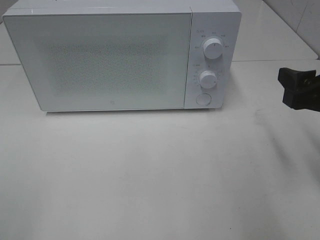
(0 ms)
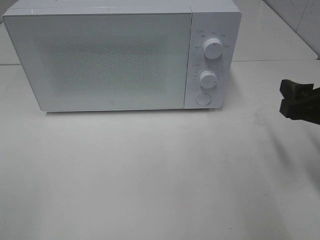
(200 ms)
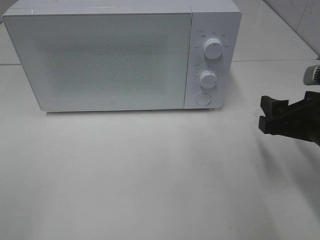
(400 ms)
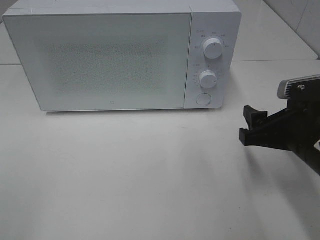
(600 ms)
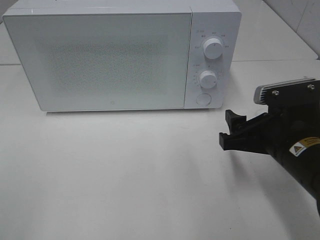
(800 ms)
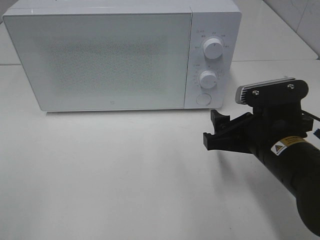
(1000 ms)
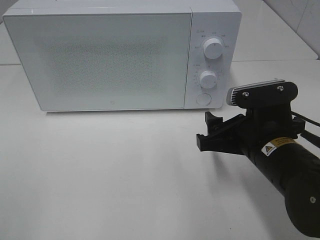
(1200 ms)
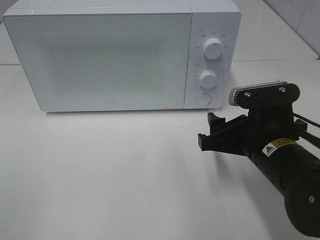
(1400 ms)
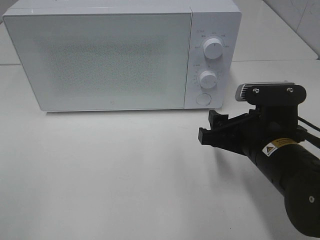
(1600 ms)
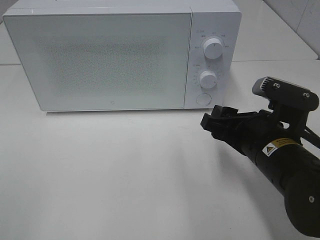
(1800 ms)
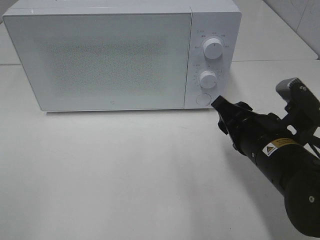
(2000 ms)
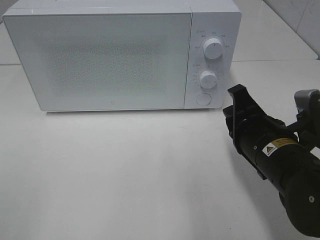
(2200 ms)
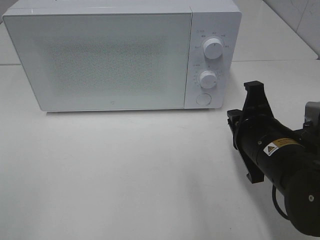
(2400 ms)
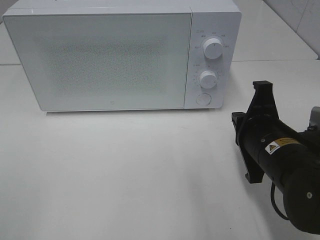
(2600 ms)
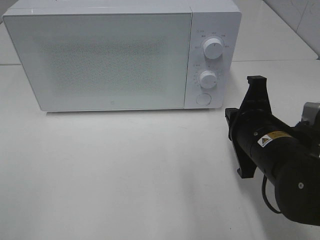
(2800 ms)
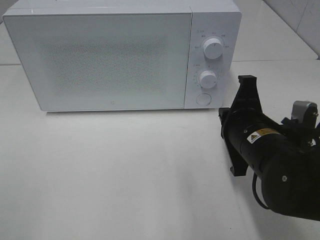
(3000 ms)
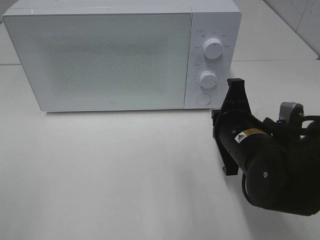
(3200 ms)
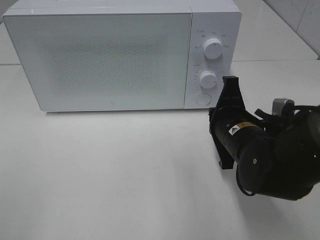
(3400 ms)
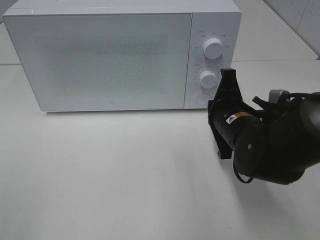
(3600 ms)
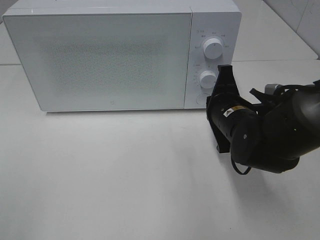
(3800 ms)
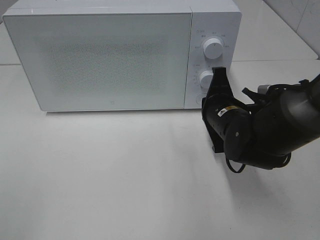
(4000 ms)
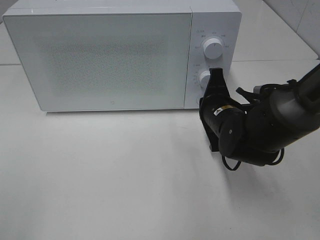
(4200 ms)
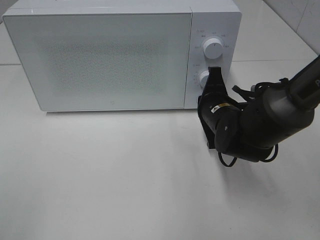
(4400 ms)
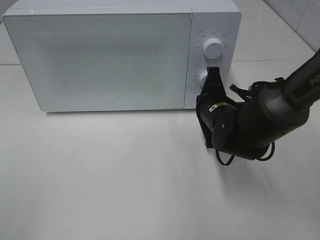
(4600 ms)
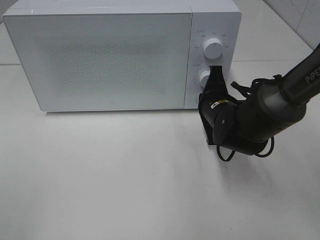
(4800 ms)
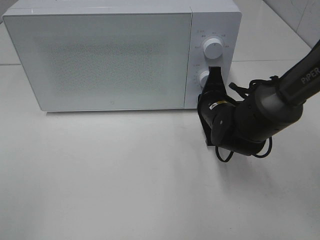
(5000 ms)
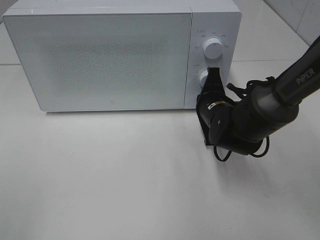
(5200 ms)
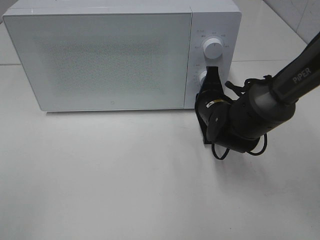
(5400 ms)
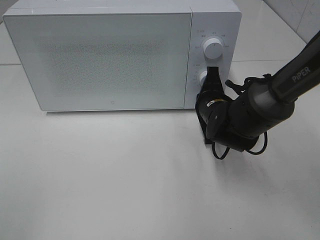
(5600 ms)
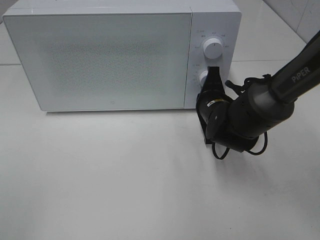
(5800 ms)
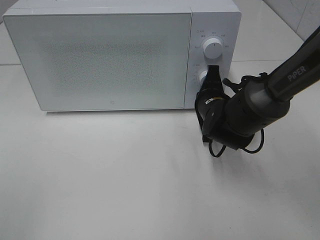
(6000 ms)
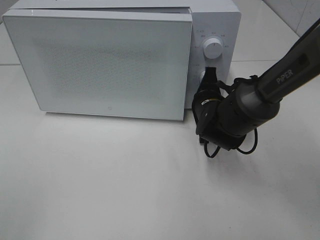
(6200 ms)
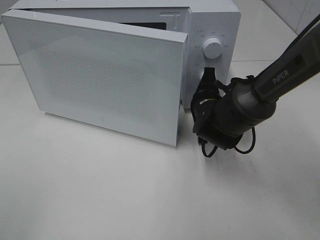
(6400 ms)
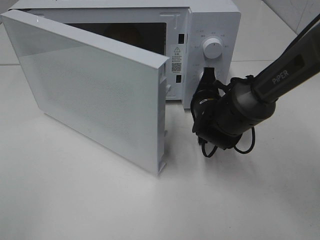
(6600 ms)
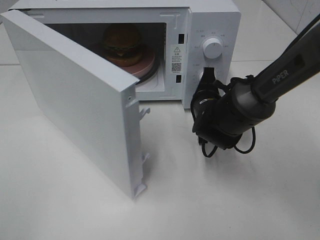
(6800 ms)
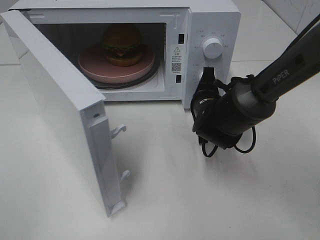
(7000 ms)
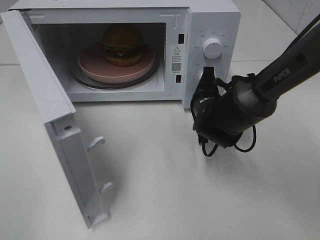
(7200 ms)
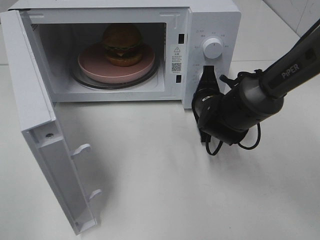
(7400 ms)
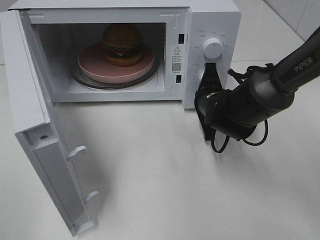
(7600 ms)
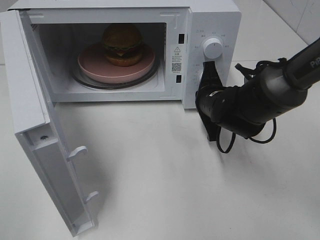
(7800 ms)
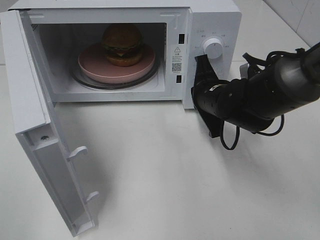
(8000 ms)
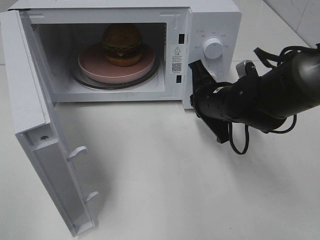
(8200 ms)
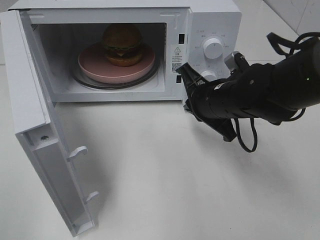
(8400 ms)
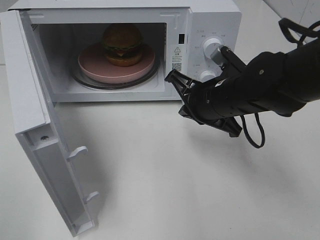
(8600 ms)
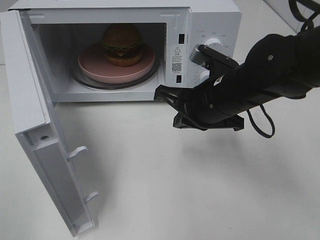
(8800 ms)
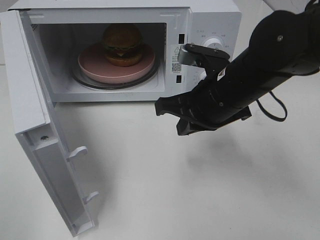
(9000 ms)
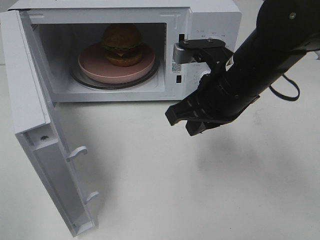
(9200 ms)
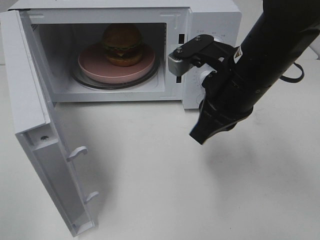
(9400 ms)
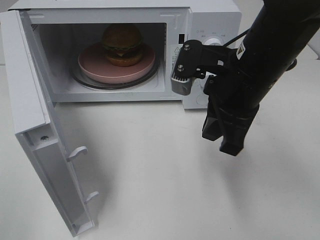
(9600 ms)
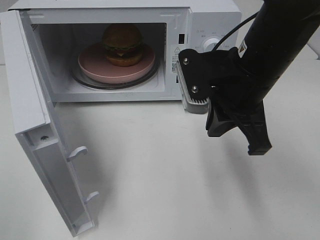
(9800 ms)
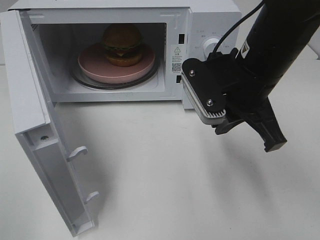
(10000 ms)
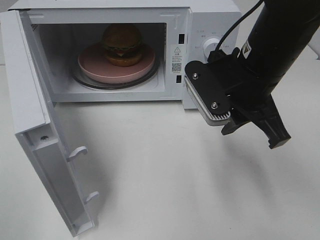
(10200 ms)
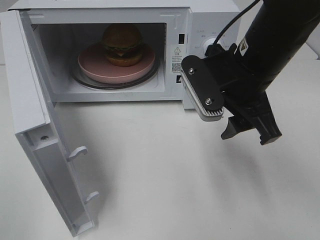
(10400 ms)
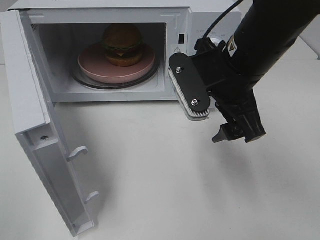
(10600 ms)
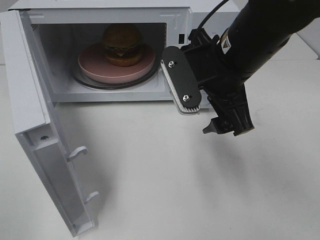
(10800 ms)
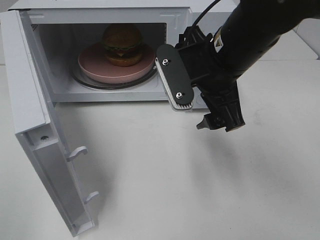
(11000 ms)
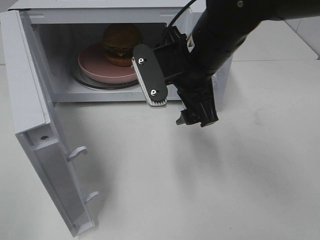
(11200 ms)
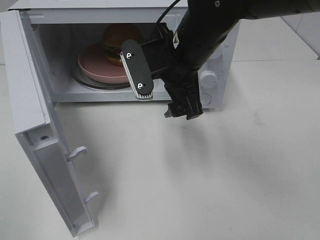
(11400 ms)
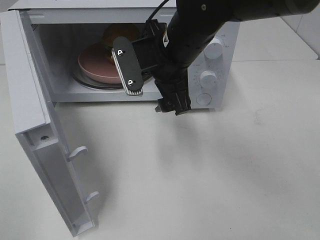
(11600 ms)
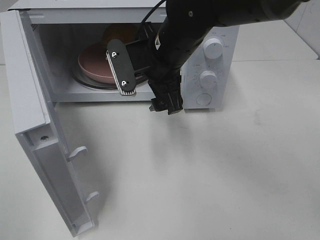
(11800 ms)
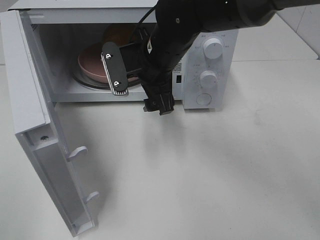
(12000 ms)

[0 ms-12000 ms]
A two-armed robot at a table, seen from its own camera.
Task of the whole recording: Heat the burger.
Step, 0 ms to 7800 ms: Right hand: press the switch.
0 ms to 1600 ms: The right gripper goes roughly 15 cm to the left and downward.
1600 ms to 3000 ms: The right gripper closes its fingers.
3000 ms to 4400 ms: The right gripper moves forward, about 10 cm.
4400 ms to 6000 ms: The grippers move only a little.
7600 ms to 9000 ms: The right gripper heads upward and backward, covering about 15 cm.
9000 ms to 10400 ms: The right gripper opens.
10400 ms to 12000 ms: The right gripper moves to the left and forward, approximately 15 cm.

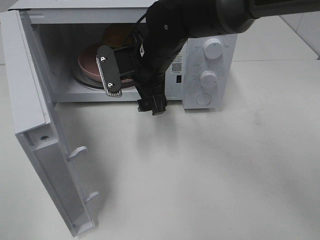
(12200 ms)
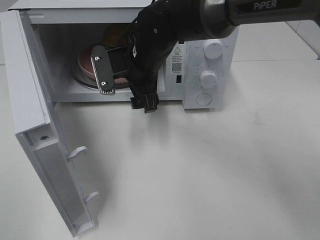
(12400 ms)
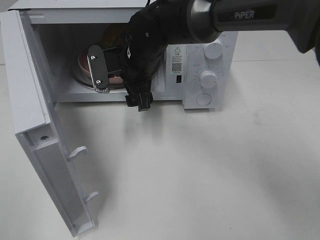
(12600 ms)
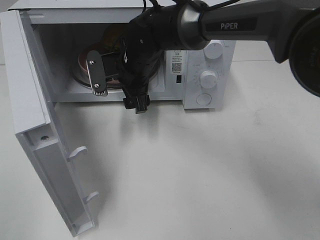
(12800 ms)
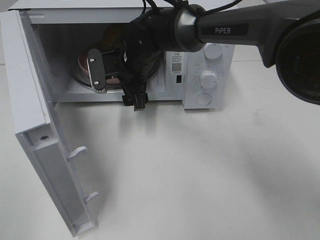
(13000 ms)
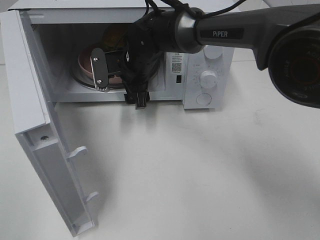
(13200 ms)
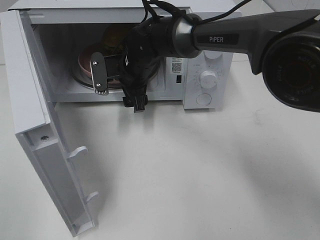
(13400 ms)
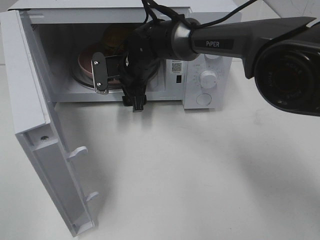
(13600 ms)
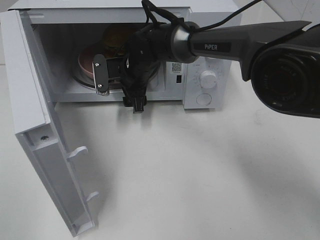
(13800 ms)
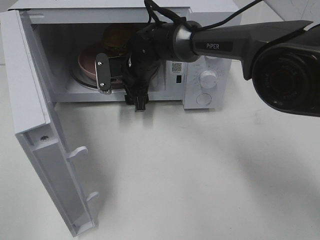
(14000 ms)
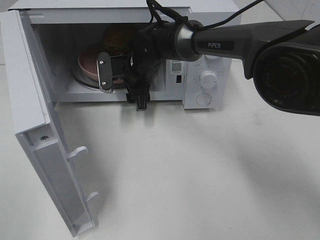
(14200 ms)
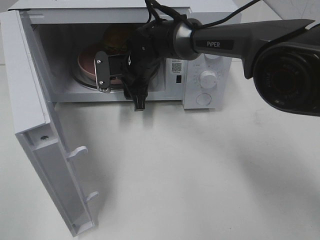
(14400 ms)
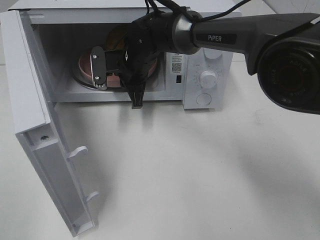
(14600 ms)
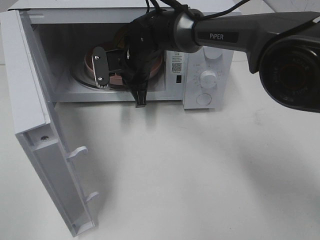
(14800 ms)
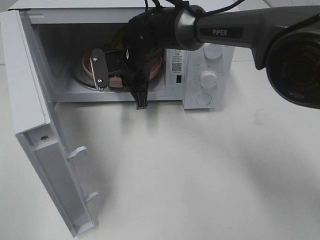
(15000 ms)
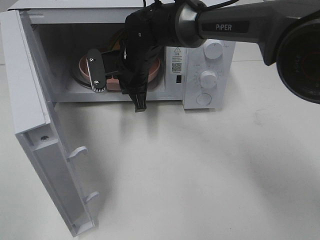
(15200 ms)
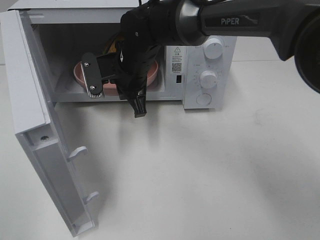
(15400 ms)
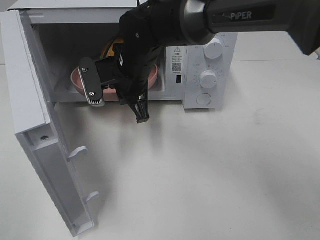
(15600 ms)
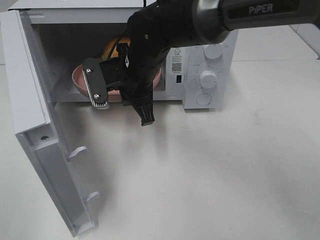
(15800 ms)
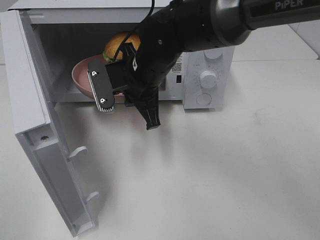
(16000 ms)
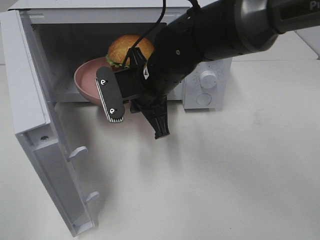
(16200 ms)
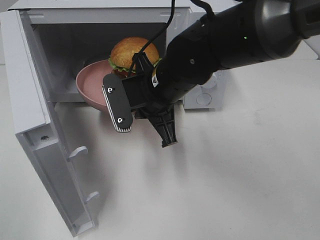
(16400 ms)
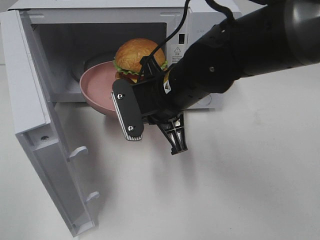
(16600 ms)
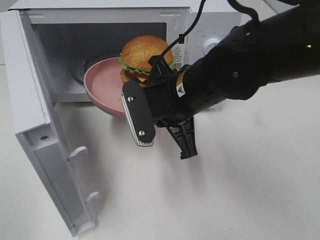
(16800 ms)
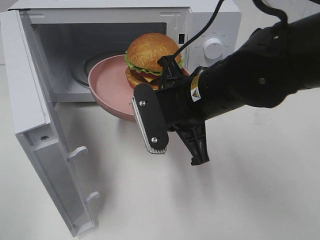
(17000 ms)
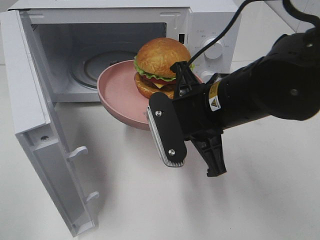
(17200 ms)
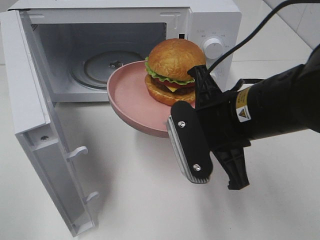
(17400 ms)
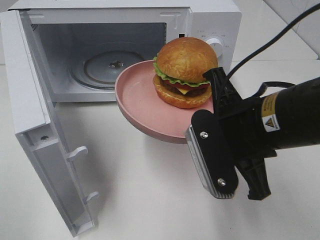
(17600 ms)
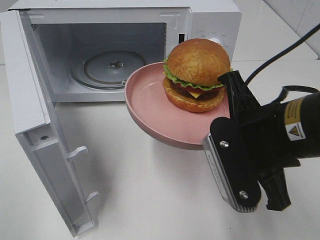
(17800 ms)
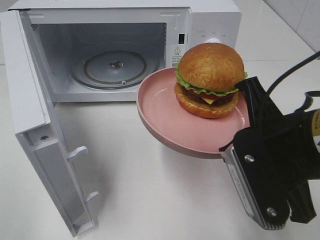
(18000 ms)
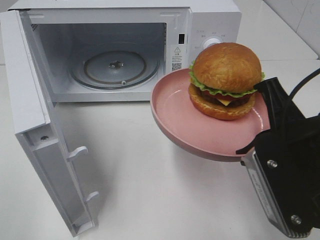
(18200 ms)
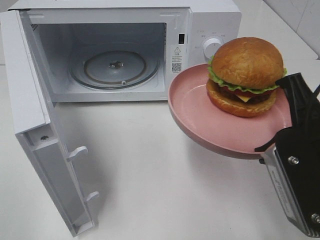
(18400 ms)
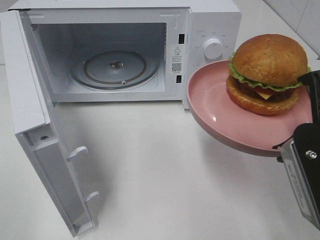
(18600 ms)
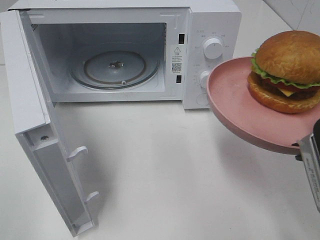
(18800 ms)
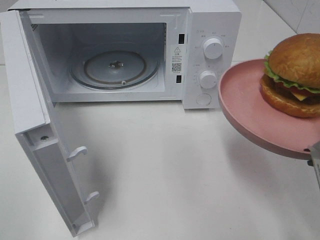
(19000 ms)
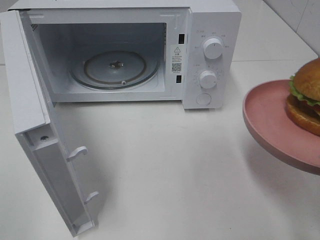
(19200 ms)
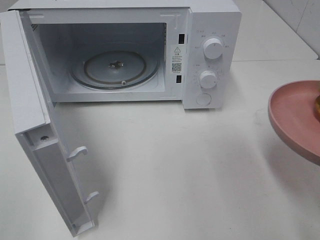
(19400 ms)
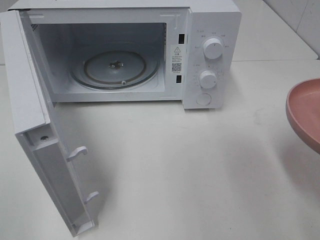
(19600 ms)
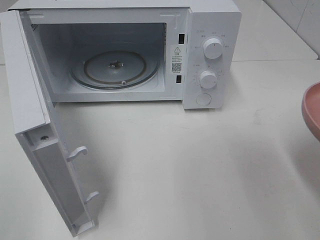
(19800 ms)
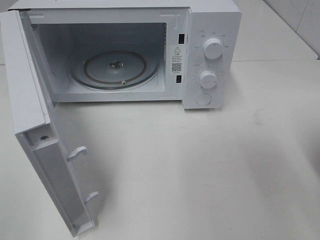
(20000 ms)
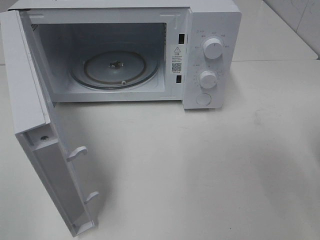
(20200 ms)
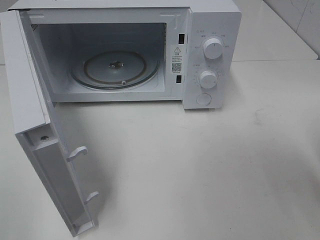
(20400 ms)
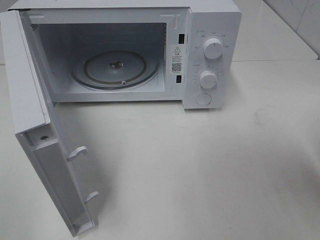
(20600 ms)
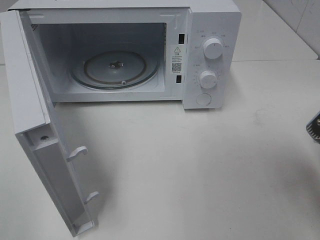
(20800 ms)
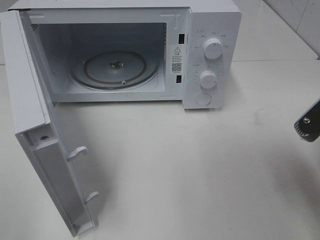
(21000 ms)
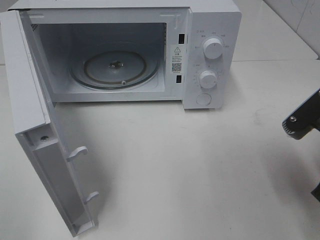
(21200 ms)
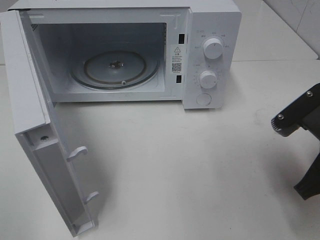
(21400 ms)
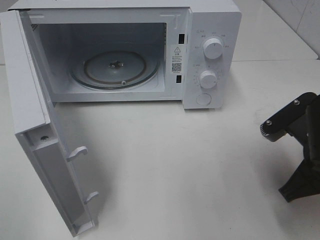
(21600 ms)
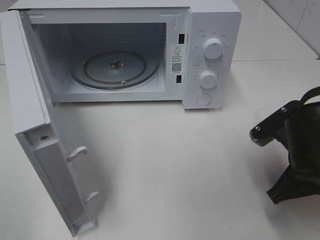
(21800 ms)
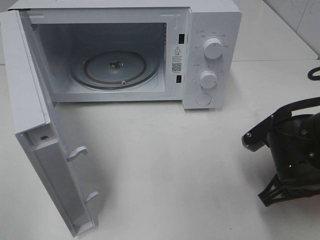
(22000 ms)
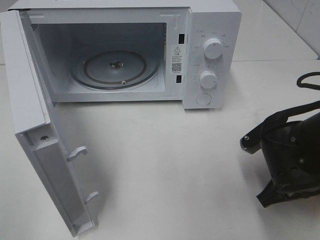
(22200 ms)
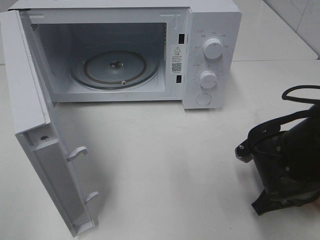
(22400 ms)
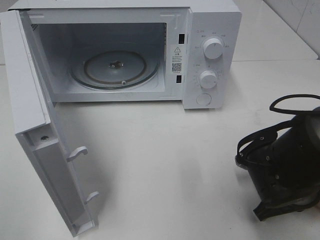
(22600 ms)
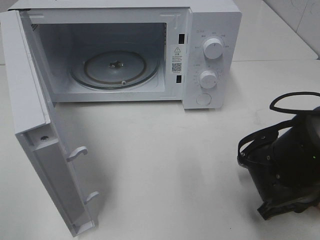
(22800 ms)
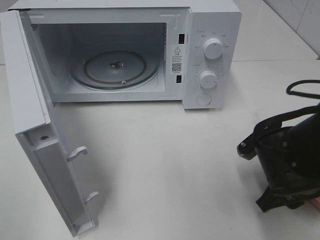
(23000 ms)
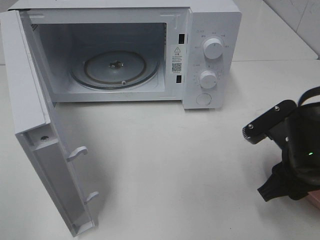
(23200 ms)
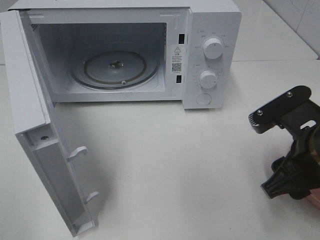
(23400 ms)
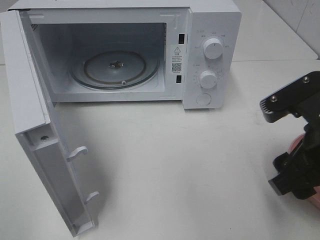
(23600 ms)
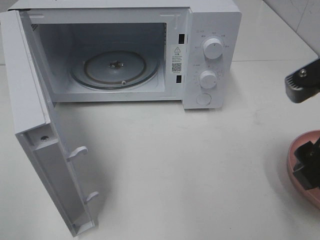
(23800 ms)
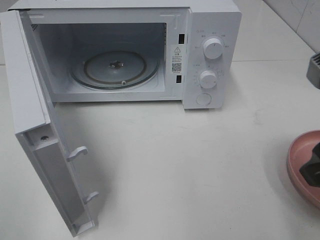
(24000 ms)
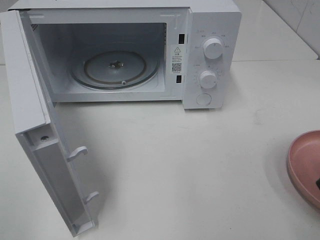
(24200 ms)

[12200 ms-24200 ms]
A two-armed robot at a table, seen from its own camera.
Task of the whole recording: Heat the burger.
Step, 12200 ms to 14600 ms: Right hand: grab the plate with the hamburger.
Step, 14800 ms to 22800 ms: Right hand: place the plate on the table.
12200 ms to 13800 ms: The right gripper is displaced forward and downward by approximately 10 cm.
13800 ms to 15200 ms: The right gripper closes up.
15200 ms to 16600 ms: The right gripper moves backward and to the right, roughly 15 cm.
16600 ms to 18200 ms: The right gripper goes approximately 20 cm backward and to the right.
18200 ms to 19800 ms: The right gripper moves to the right, about 10 cm.
19800 ms to 21200 ms: The right gripper shifts approximately 5 cm forward.
21200 ms to 22600 ms: The right gripper is displaced downward by some 10 cm.
22600 ms to 24200 ms: The right gripper travels upward and backward by some 25 cm, and opens.
